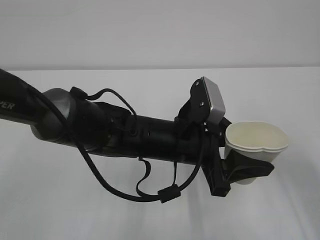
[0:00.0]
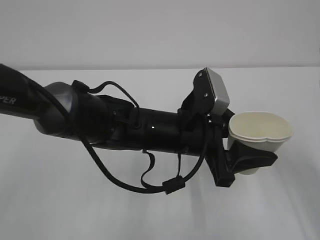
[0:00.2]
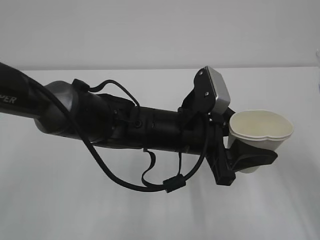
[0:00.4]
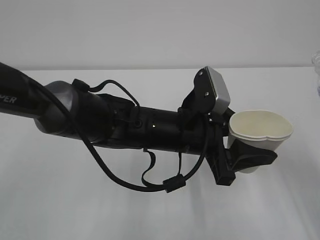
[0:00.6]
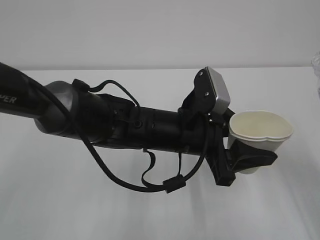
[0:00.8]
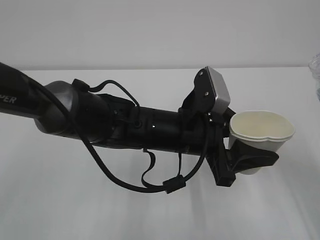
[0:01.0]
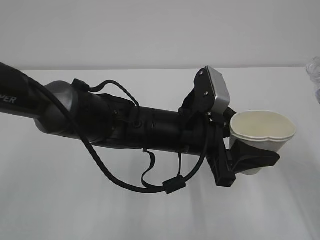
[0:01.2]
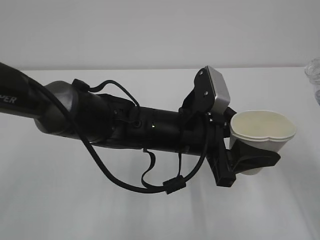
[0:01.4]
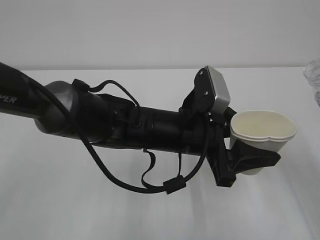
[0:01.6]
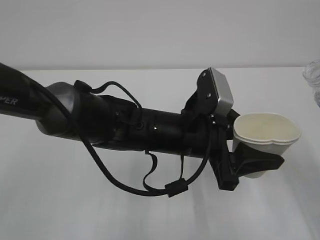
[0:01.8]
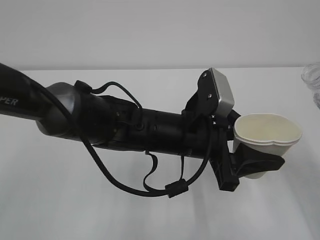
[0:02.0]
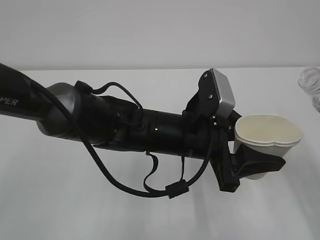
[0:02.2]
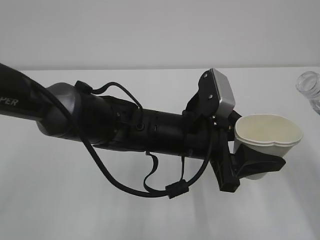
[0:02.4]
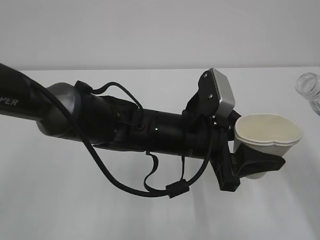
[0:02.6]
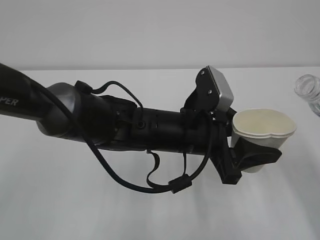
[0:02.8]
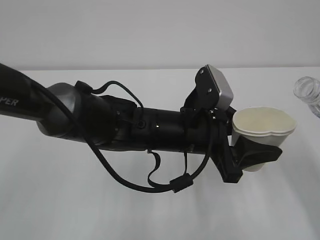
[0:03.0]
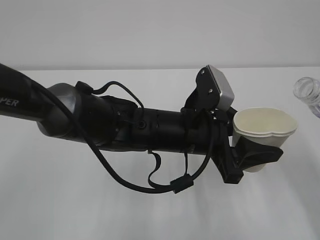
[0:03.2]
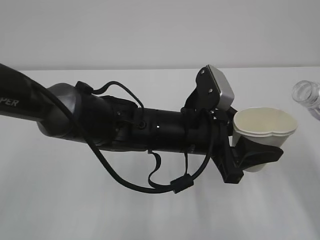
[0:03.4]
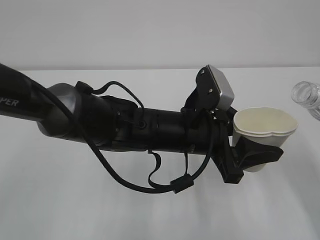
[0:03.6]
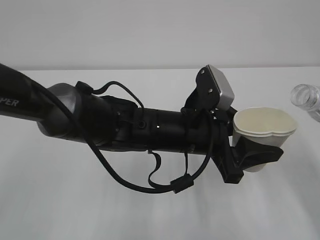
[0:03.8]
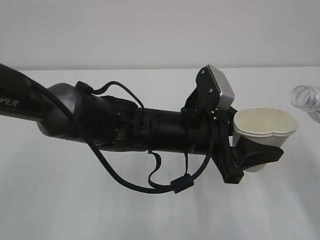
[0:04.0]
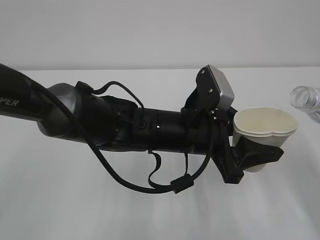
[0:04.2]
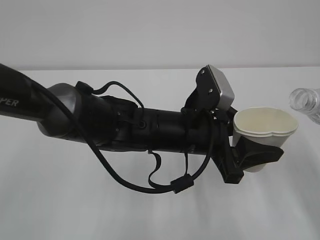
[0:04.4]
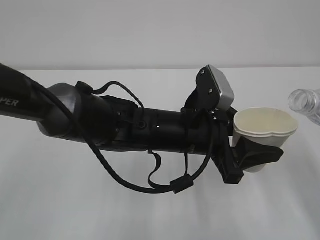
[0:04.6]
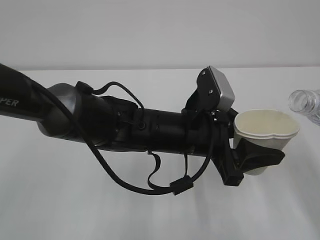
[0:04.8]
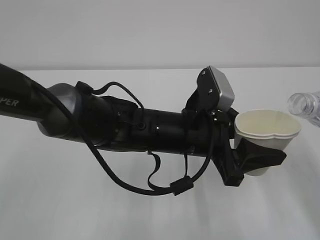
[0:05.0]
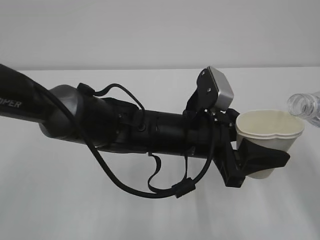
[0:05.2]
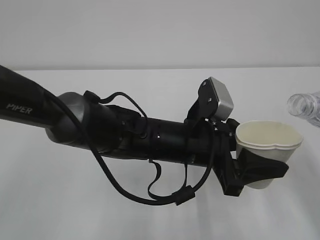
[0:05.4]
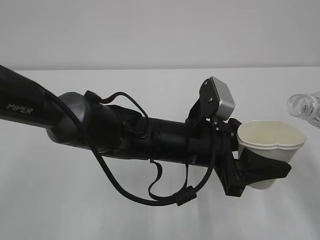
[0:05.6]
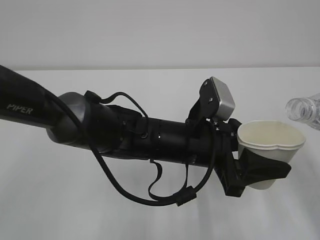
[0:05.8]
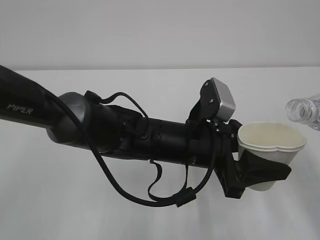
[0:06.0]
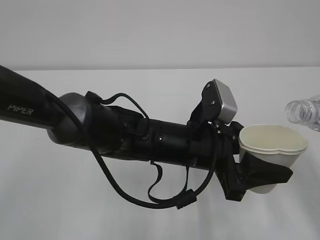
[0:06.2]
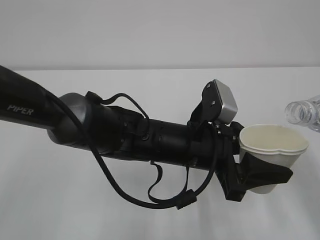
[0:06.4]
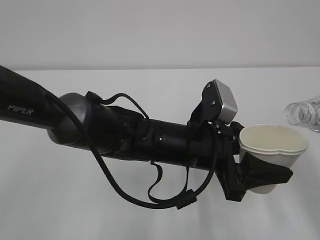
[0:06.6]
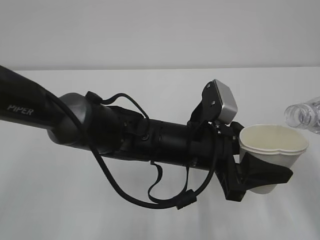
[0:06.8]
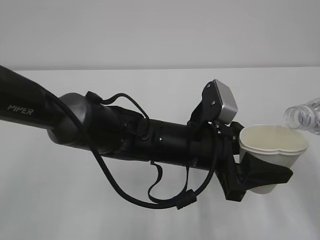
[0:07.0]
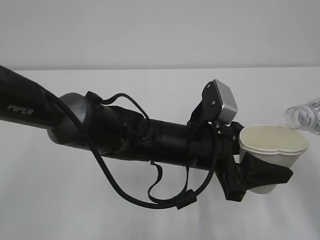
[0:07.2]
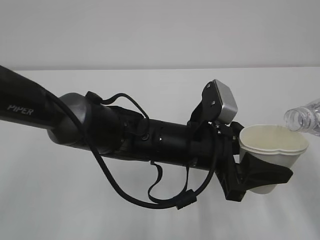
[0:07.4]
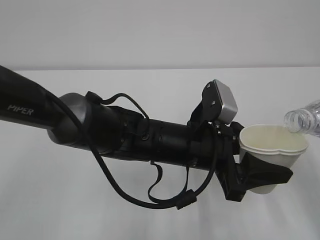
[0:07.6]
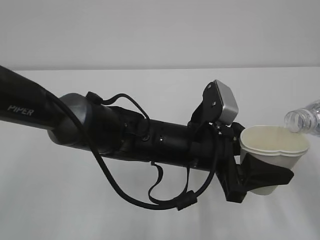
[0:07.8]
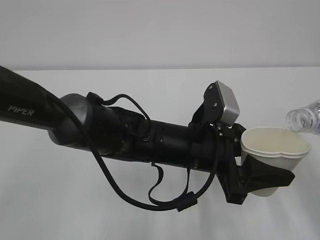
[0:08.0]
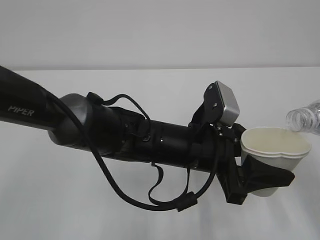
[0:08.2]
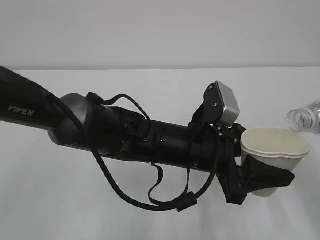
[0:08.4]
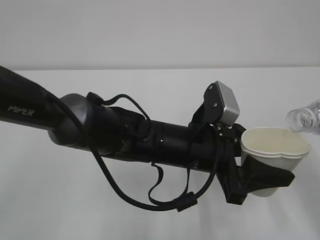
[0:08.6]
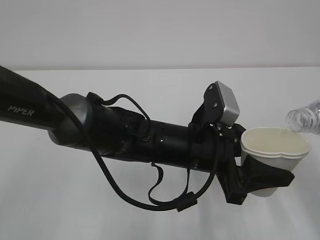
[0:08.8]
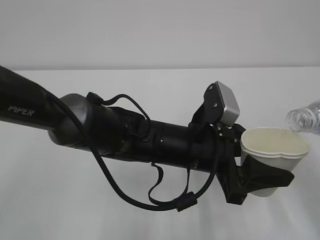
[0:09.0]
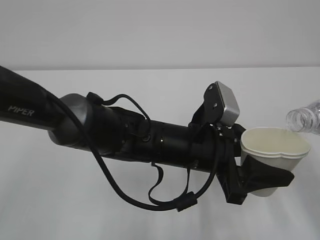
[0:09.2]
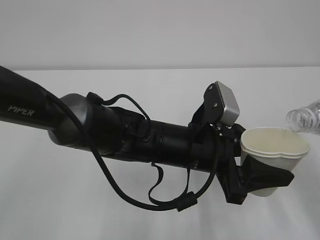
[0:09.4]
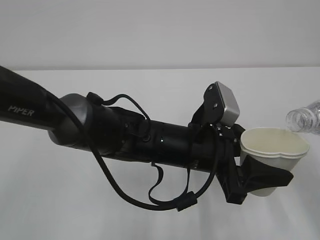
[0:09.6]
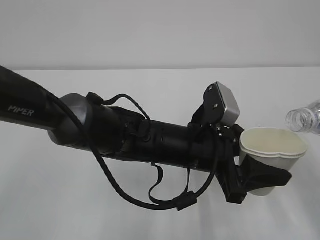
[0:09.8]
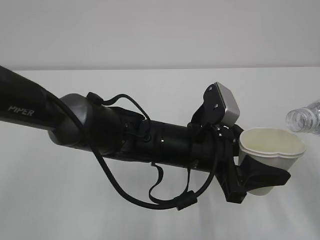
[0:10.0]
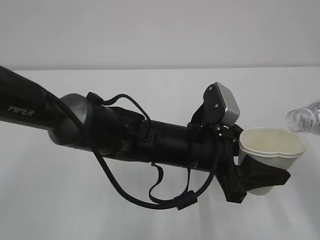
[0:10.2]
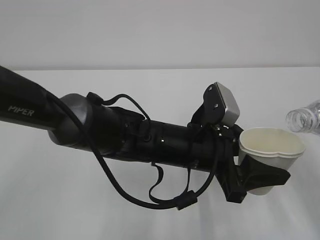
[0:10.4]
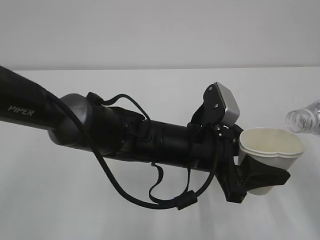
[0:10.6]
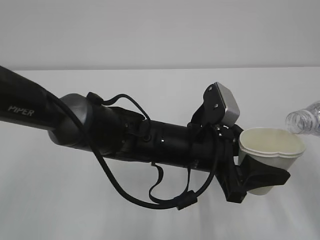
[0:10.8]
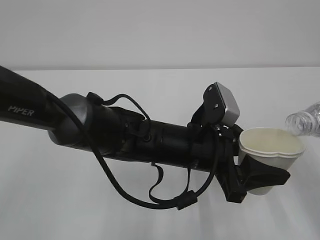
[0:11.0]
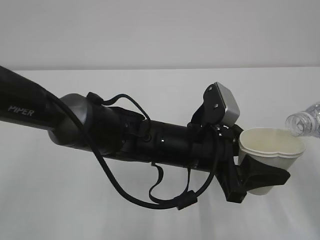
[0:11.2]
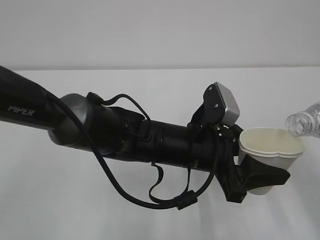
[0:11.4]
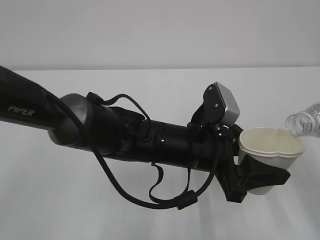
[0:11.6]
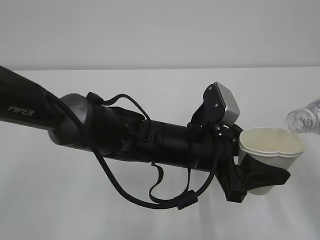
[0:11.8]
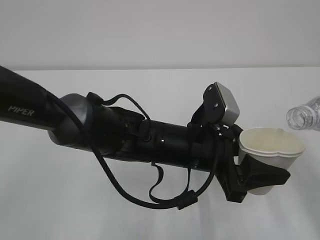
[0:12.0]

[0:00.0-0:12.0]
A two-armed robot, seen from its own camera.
0:00.0 to 0:01.6: The grippers move only a little.
0:01.6 to 0:04.4: The grippers move only a little.
0:04.4 to 0:07.6: The grippers make only small movements.
0:07.6 to 0:12.0: The two grippers keep their place.

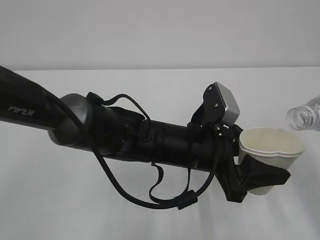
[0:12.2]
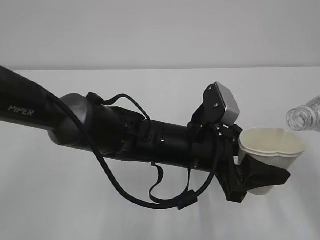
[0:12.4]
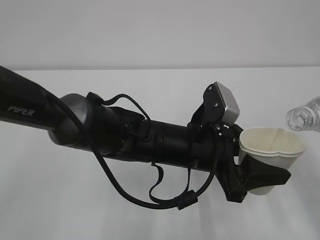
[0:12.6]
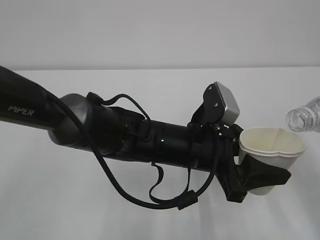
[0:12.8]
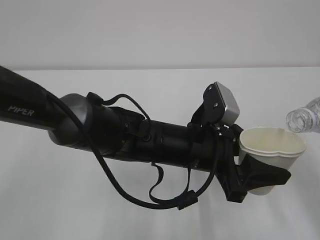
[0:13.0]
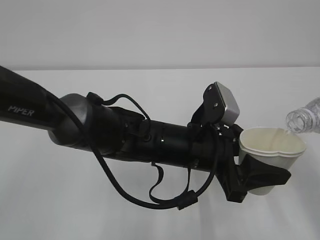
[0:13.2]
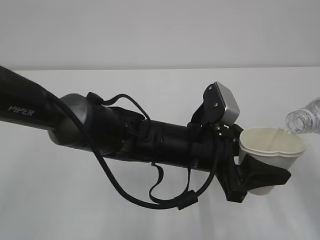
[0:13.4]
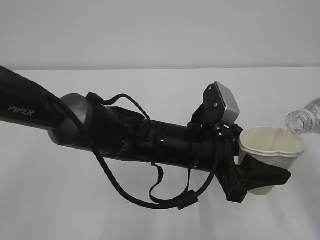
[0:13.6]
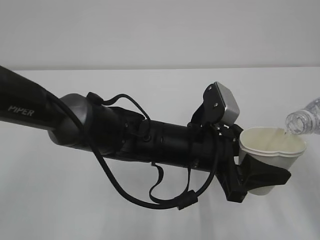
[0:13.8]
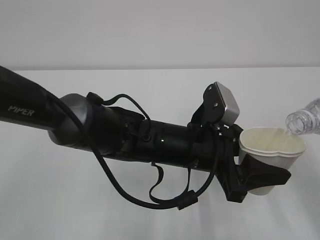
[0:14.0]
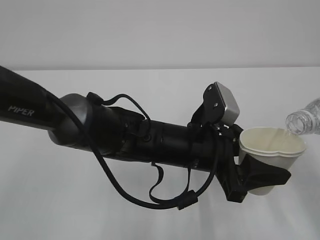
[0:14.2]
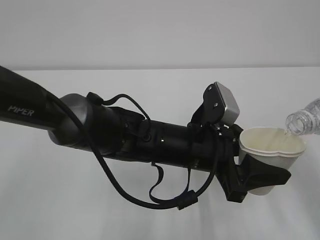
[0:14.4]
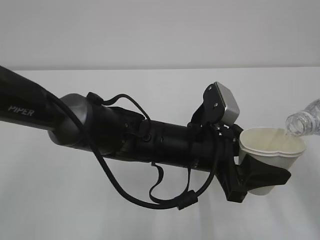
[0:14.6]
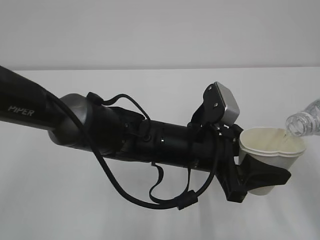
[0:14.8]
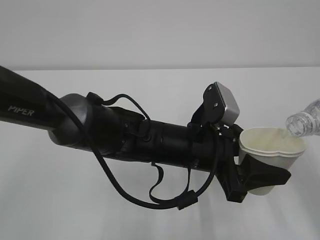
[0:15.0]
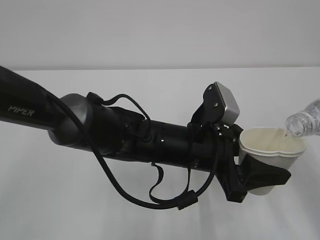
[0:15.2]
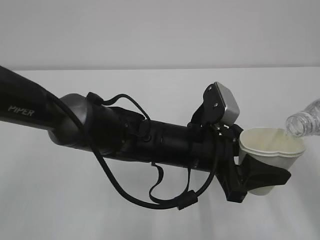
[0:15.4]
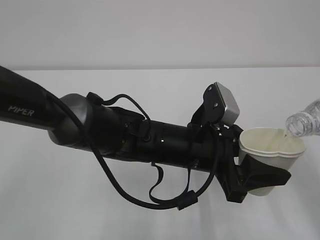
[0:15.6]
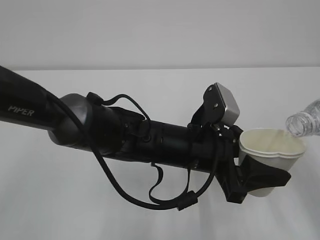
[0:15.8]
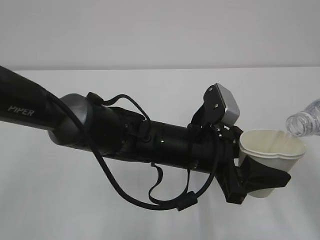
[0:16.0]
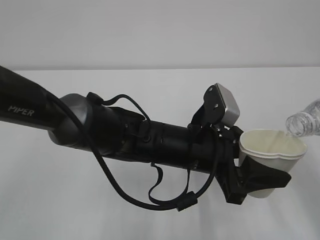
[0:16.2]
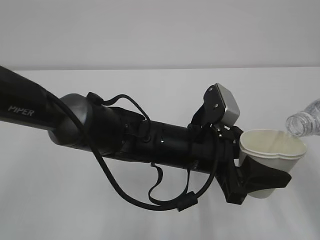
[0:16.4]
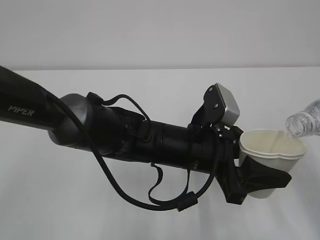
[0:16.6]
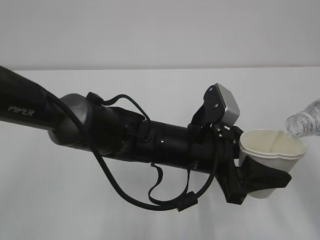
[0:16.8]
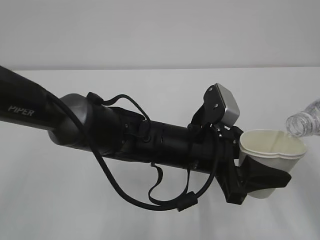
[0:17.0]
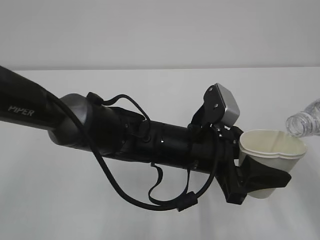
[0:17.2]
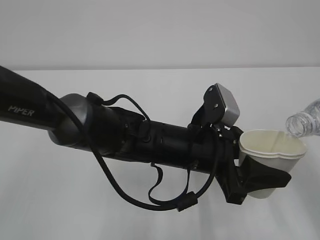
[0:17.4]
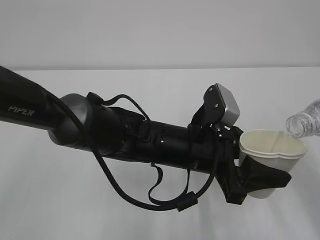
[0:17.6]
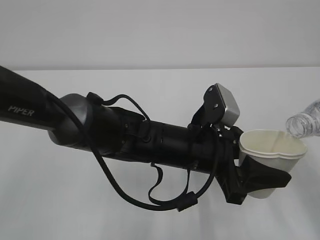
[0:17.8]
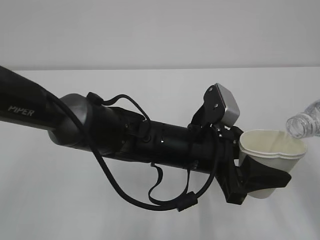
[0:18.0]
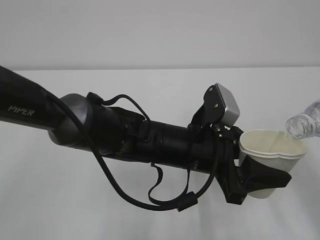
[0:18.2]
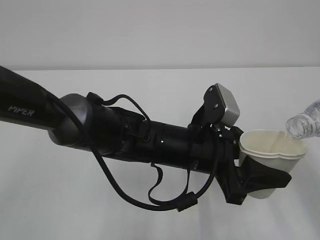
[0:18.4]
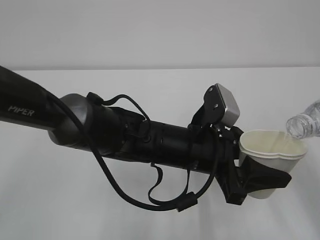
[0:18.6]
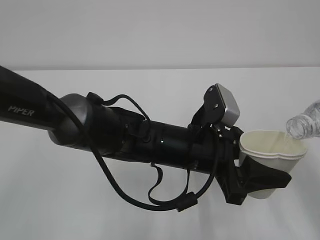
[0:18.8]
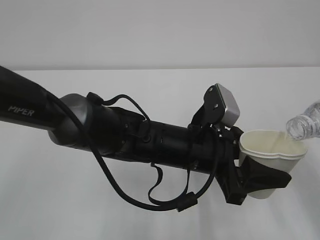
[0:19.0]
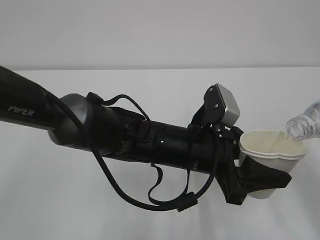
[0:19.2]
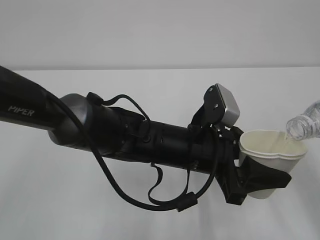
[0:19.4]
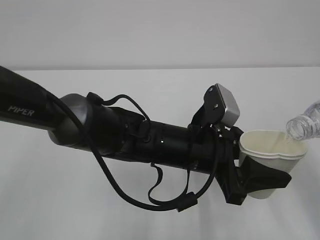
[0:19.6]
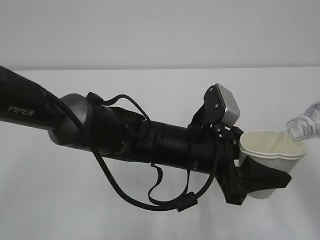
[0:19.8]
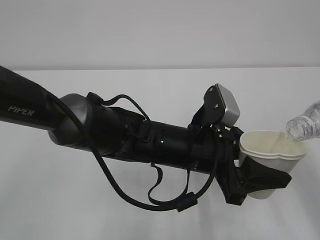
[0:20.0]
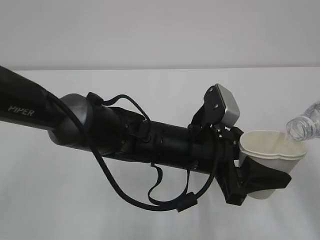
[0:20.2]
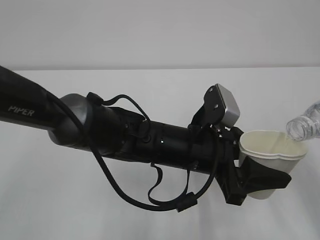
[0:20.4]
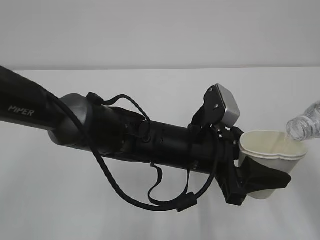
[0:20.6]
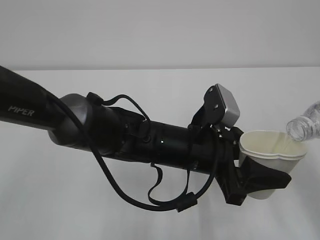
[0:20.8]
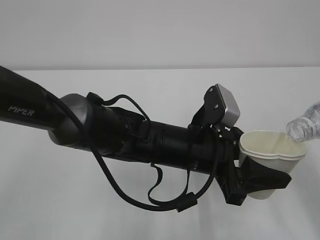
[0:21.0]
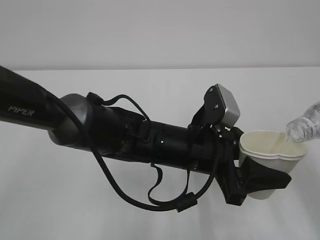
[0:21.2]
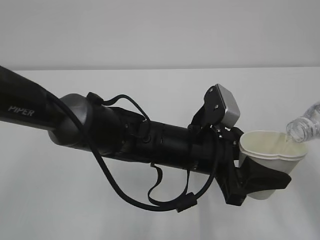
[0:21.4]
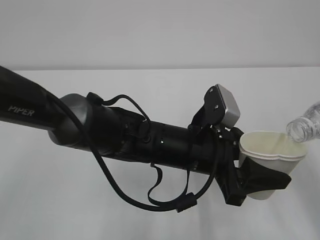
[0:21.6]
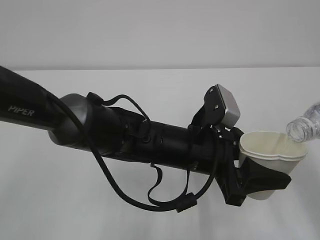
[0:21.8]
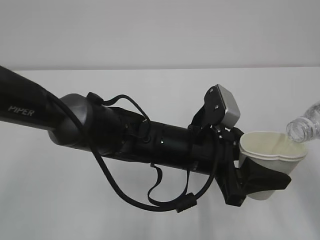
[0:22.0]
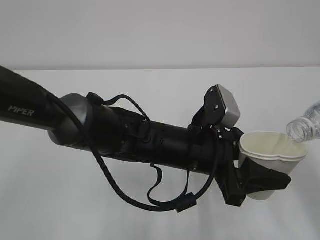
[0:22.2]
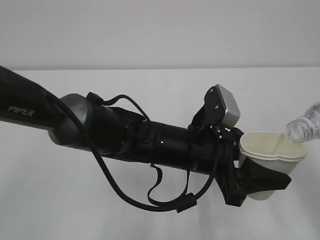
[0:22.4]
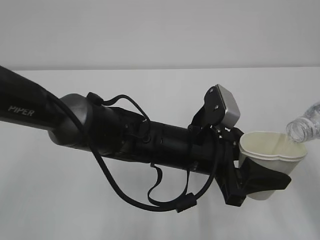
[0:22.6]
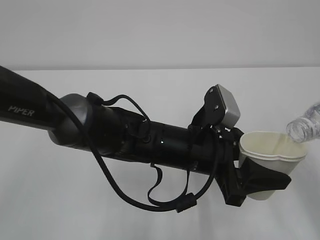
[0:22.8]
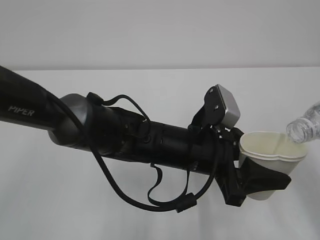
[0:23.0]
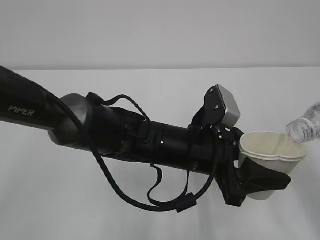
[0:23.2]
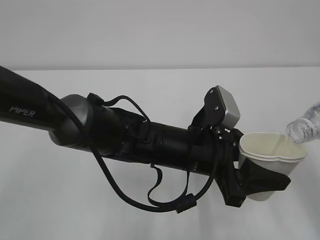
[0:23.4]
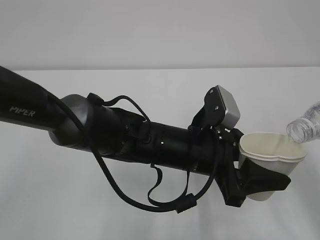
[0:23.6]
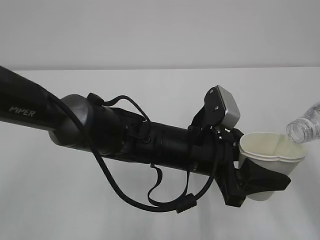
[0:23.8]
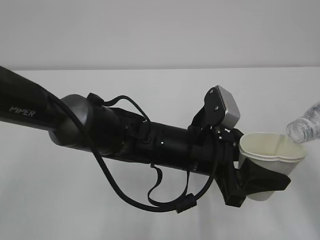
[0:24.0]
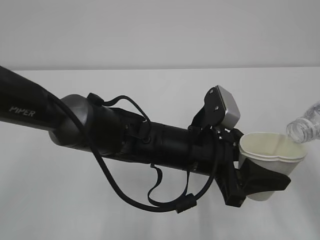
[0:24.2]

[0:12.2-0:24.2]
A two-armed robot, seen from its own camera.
0:12.2 to 0:16.6: The two grippers keep their place.
0:16.6 to 0:22.6: Both grippers stay about where they are.
0:22.6 to 0:24.2: Both grippers stay about where they are.
